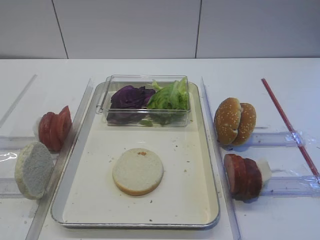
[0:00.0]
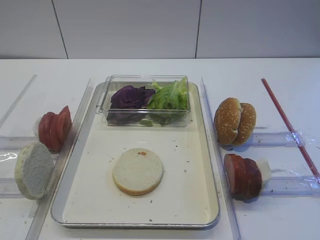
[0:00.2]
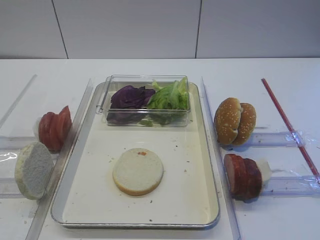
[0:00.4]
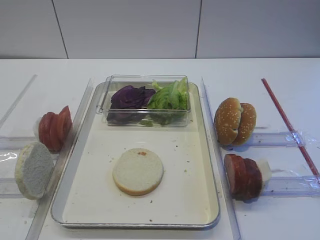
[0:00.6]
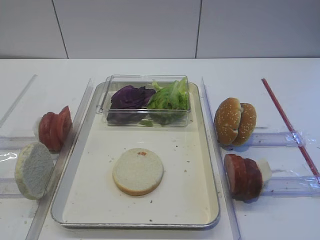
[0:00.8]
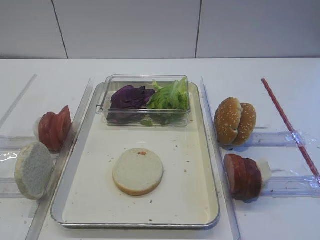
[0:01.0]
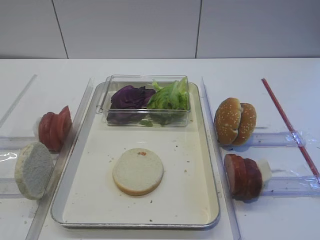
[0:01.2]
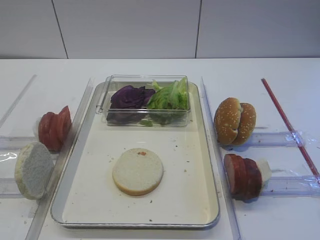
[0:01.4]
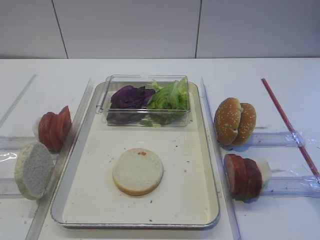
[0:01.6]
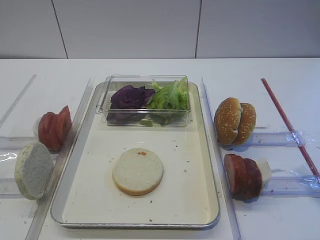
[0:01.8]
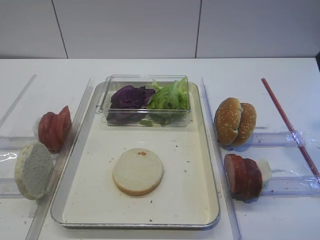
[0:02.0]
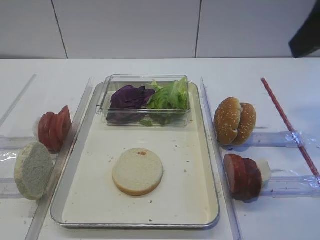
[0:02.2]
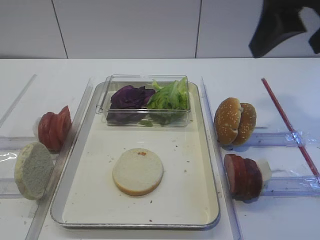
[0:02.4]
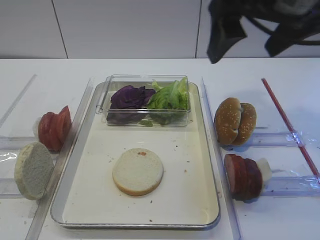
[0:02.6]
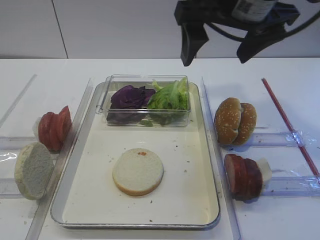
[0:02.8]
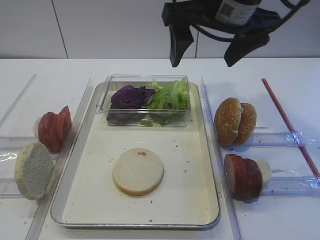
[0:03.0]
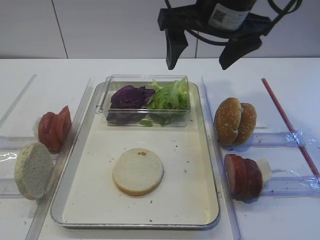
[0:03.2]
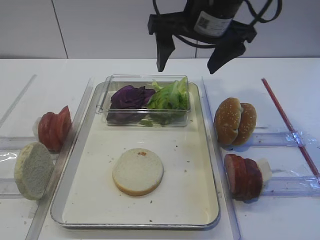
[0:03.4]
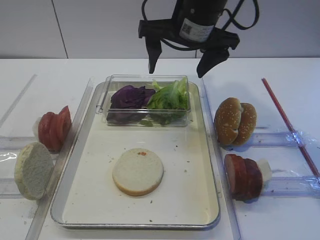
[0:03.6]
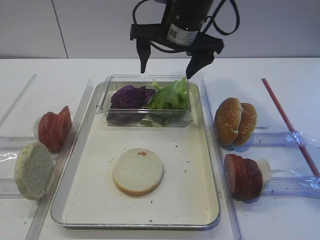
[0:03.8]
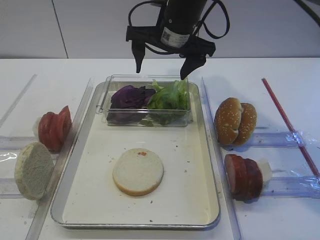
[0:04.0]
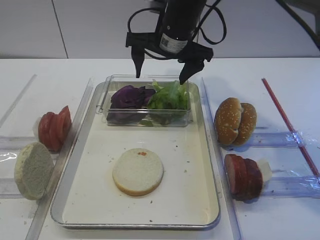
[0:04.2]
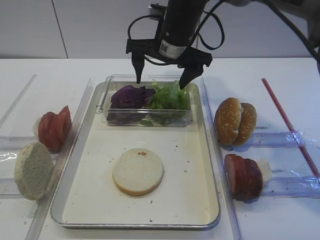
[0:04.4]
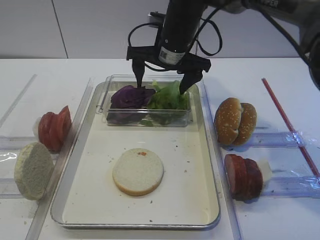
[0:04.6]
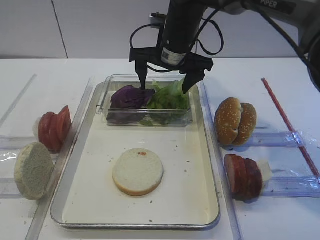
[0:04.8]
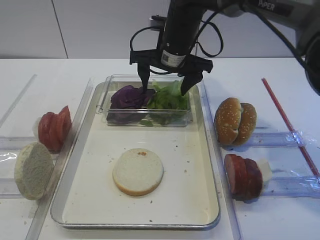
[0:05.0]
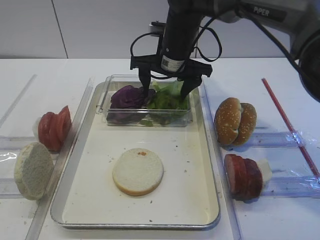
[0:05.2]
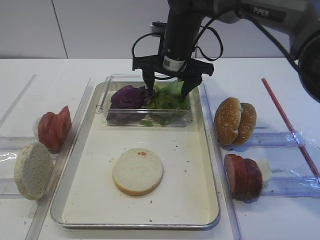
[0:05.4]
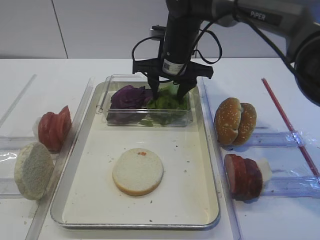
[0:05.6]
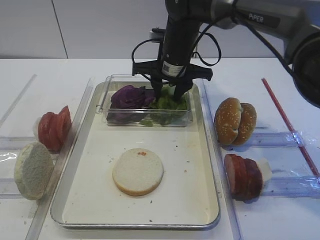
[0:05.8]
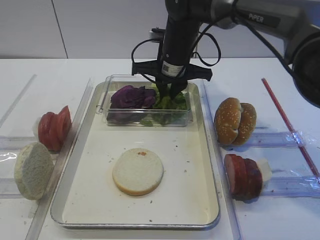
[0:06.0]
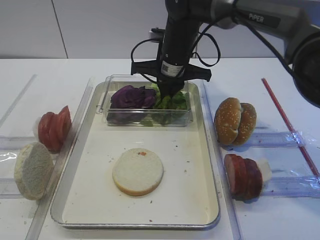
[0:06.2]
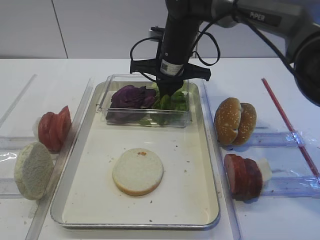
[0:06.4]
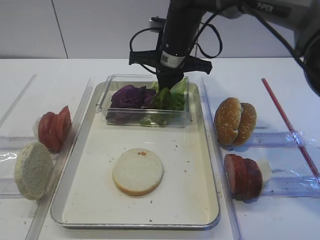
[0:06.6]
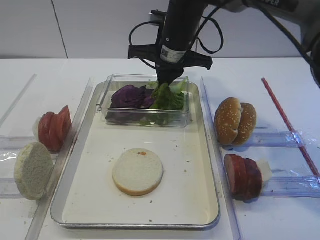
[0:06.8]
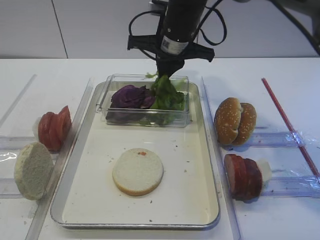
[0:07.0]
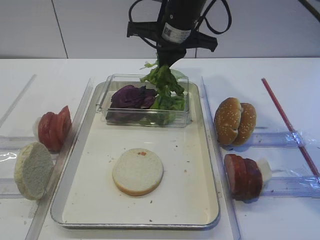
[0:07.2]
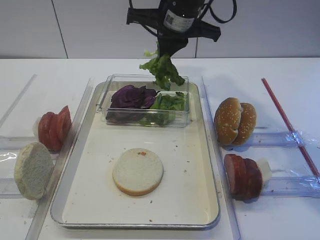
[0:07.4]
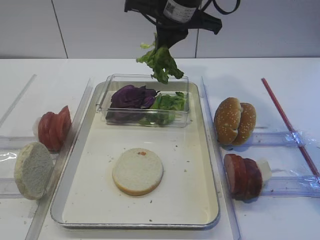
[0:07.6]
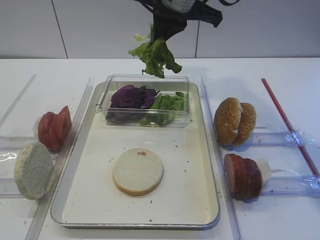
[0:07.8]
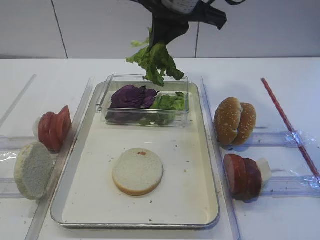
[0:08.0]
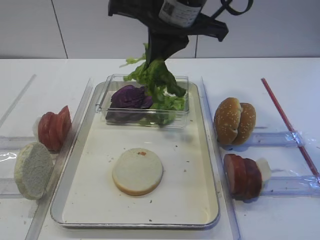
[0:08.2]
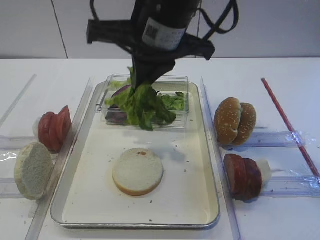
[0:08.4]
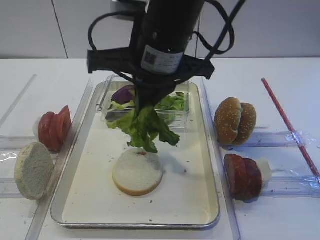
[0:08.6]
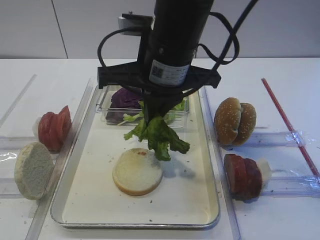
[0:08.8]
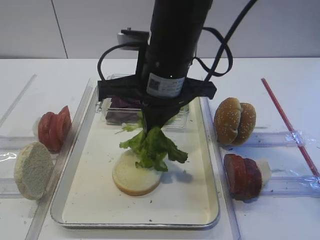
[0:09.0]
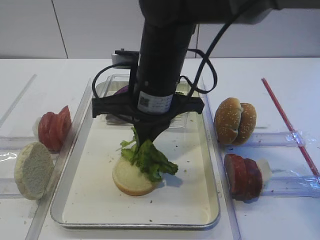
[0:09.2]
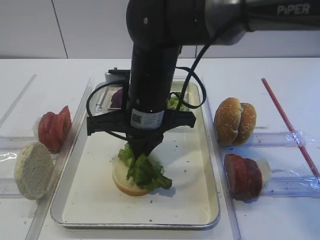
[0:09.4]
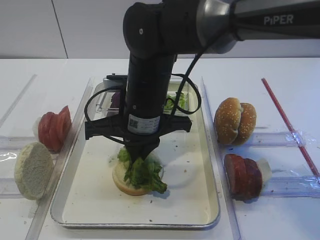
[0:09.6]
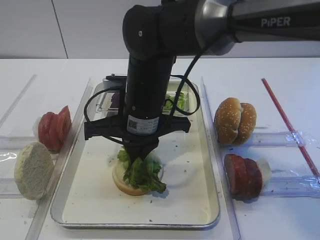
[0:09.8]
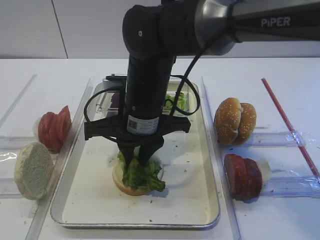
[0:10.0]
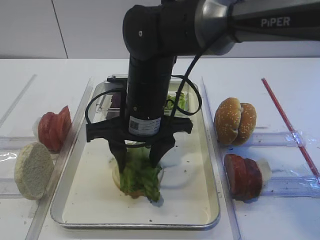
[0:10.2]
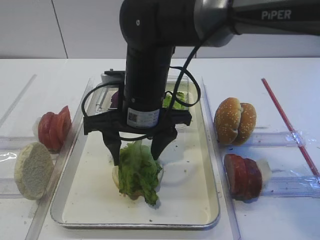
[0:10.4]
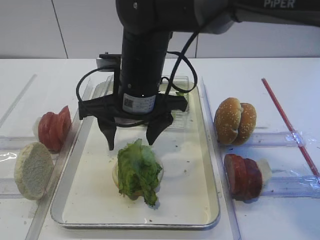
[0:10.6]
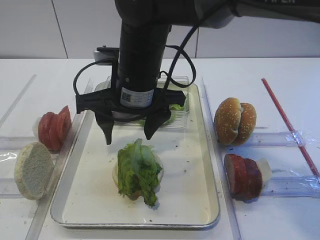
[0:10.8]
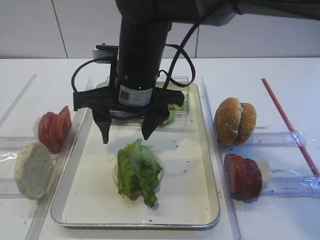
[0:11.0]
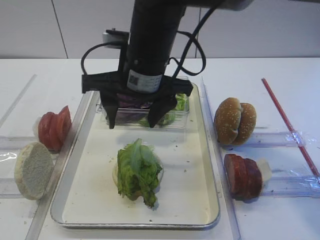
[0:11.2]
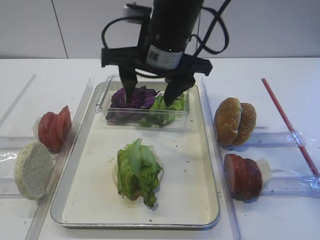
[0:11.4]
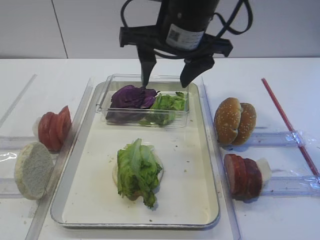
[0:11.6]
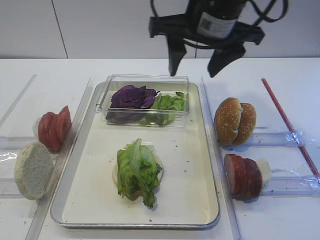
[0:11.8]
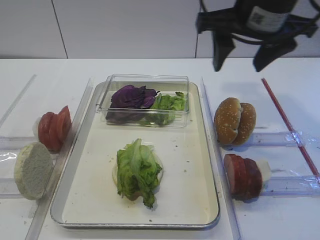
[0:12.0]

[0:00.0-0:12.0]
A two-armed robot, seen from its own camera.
Step, 0:00.0 to 0:07.0: Pick up the lettuce leaf with the right gripper.
Step, 0:07.2 to 0:10.6: Place the lettuce leaf on the bread slice with the right gripper.
0:01.6 to 0:03.0: The right gripper goes about 30 cm forward and to the left.
0:03.0 to 0:04.4: The right gripper moves forward, downward and to the left, some 15 cm.
0:04.4 to 0:06.0: The right gripper closes its fingers.
0:06.0 to 0:07.6: The right gripper travels upward by approximately 10 cm.
0:07.6 to 0:09.0: The right gripper is displaced backward by roughly 10 cm.
0:09.0 to 0:10.4: The right gripper goes some 5 cm downward, and opens.
0:10.4 to 0:12.0: The right gripper goes approximately 20 cm to the right and upward.

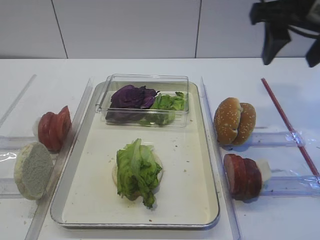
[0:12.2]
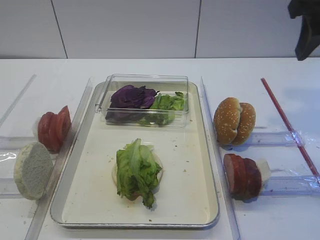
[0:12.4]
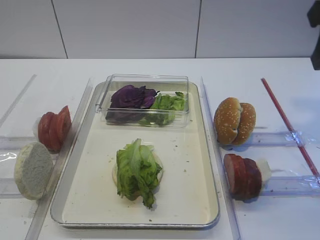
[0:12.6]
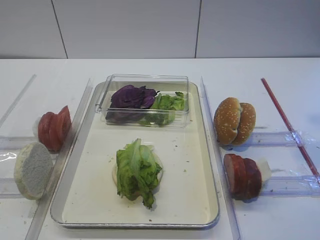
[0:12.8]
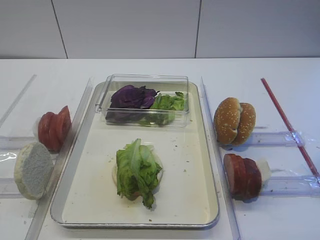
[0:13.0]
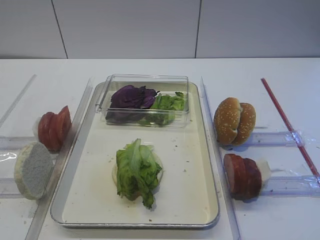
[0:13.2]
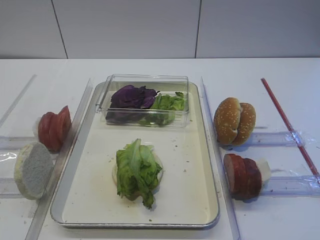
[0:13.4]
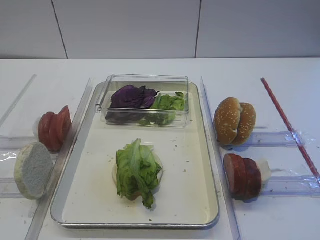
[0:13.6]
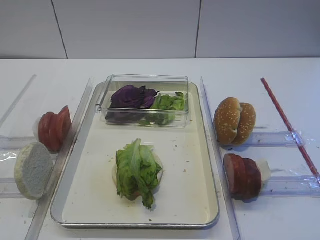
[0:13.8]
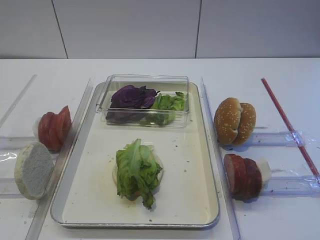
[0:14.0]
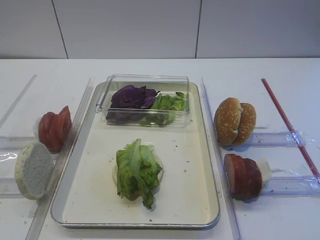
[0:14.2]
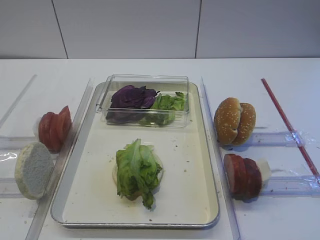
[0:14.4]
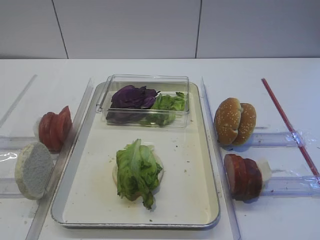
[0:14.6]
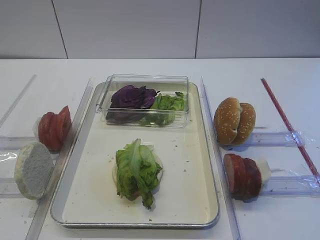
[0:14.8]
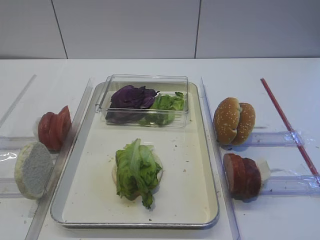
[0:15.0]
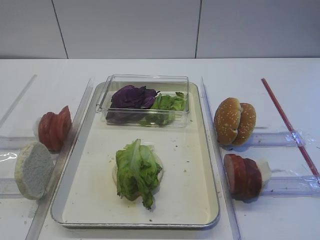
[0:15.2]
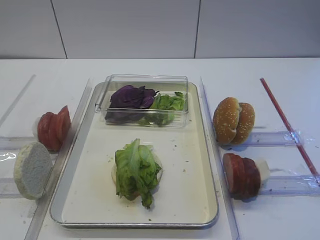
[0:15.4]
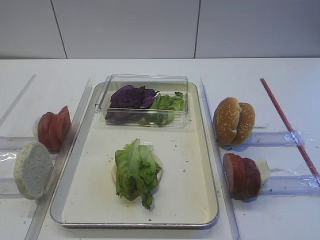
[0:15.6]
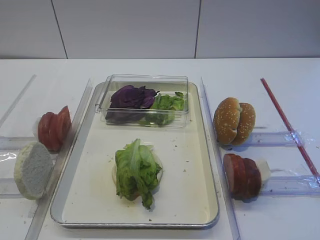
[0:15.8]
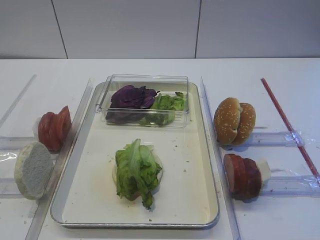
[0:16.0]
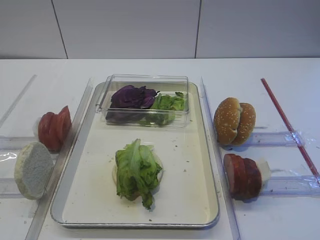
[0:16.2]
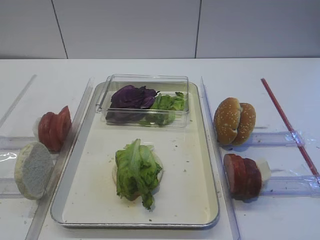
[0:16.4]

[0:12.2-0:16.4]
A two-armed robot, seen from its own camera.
0:12.2 to 0:13.6: The right gripper goes about 25 cm backward.

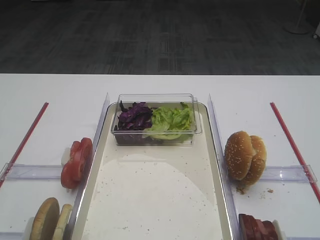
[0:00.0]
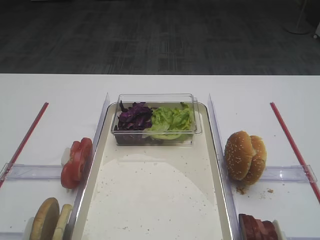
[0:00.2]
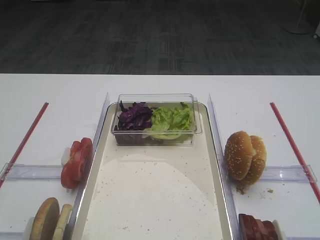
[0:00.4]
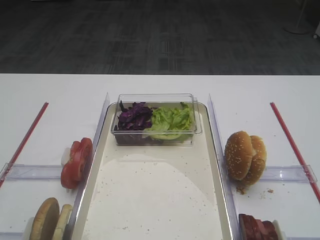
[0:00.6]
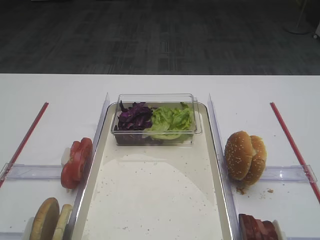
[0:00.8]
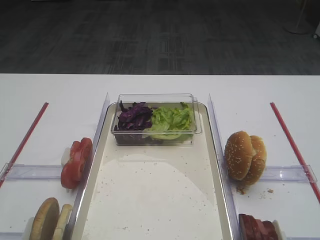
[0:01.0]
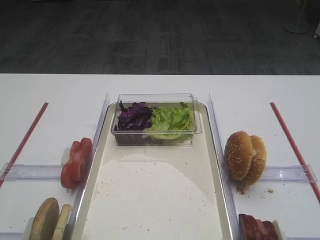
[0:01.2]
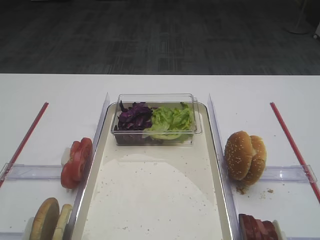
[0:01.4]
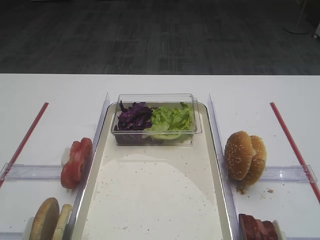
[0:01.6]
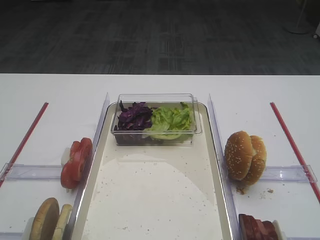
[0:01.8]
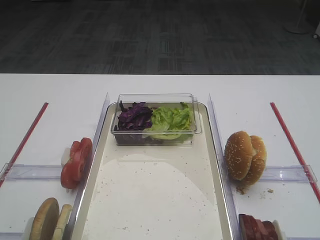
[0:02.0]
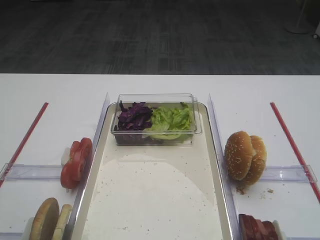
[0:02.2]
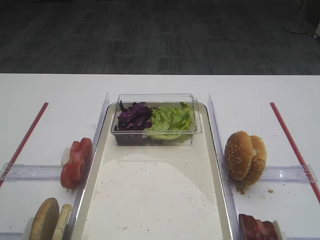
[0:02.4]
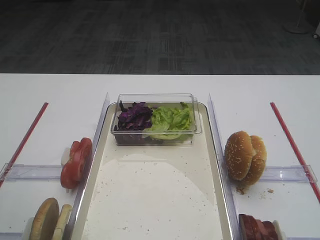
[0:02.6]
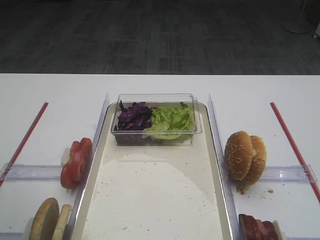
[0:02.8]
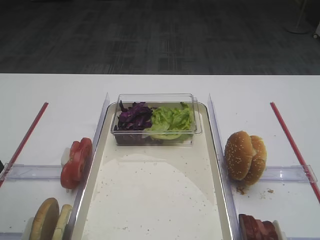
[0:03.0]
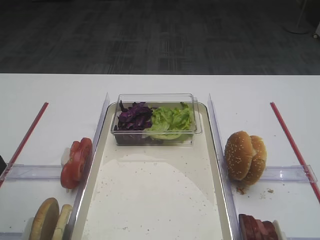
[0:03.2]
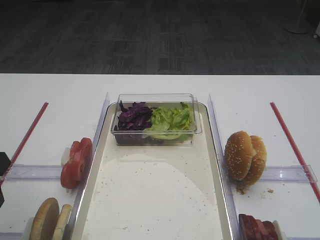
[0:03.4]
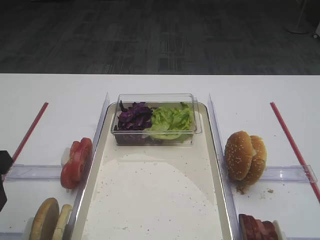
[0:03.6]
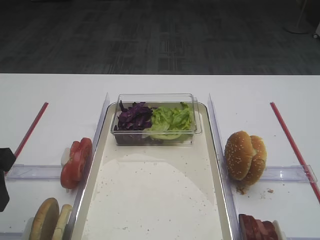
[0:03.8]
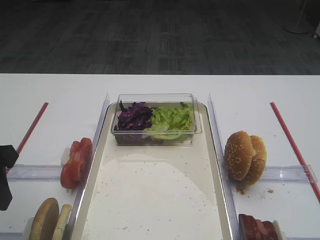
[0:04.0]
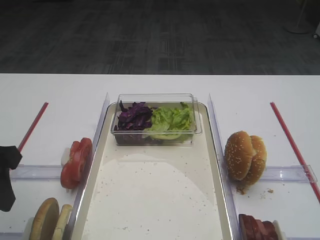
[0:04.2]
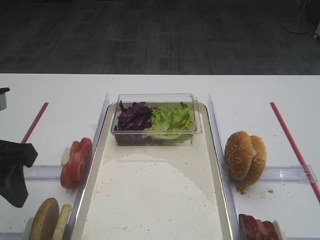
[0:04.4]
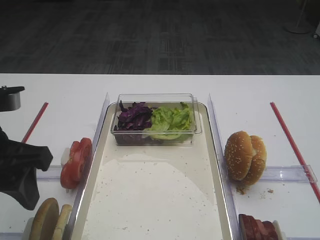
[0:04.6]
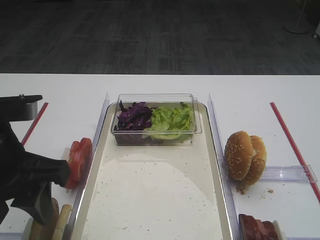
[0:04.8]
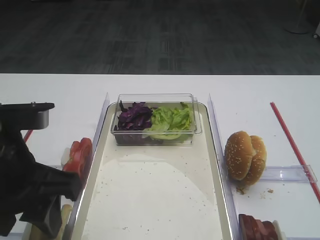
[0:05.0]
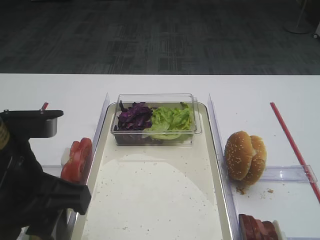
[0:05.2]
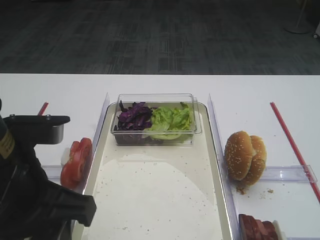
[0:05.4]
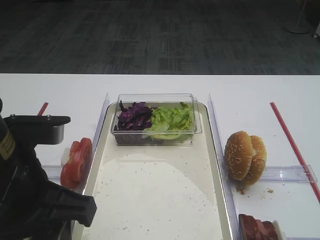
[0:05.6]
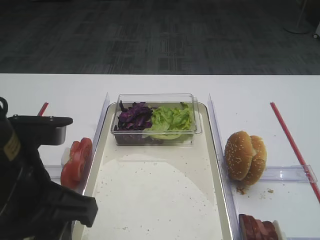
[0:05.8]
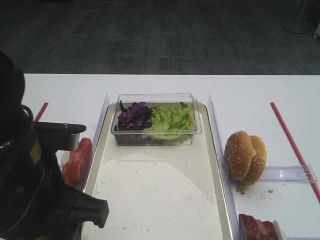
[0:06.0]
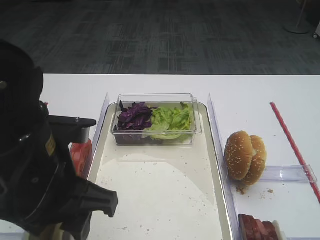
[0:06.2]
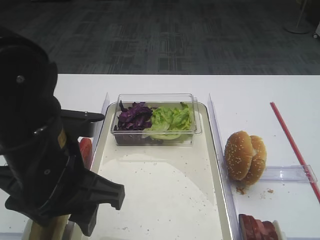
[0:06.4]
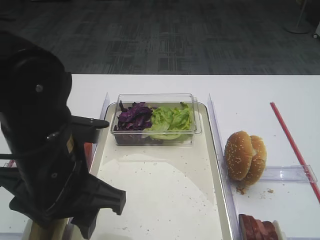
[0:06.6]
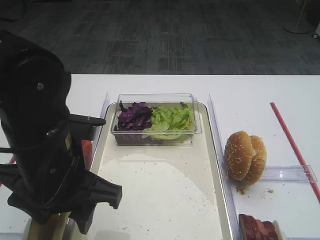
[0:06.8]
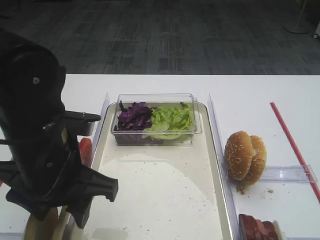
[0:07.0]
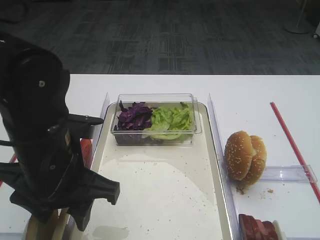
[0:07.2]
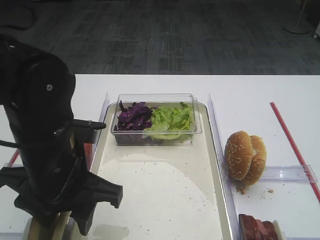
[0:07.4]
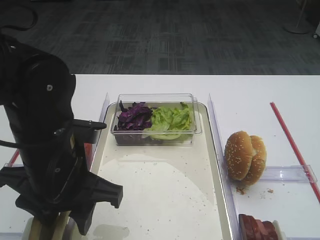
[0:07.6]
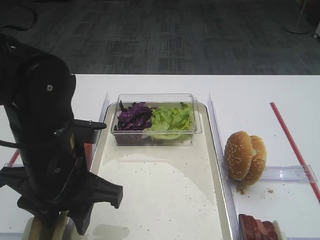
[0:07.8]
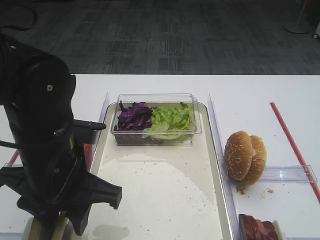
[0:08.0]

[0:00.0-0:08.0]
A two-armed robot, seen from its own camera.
0:01.6 to 0:03.2: The left gripper heads forward, covering approximately 15 cm.
0:03.2 to 0:04.8: The left gripper travels to the right by about 10 cm.
0:04.8 to 0:06.4: The left gripper moves to the right, roughly 5 cm.
0:06.4 to 0:08.0: The grippers stay close to where they were, moving slightly.
